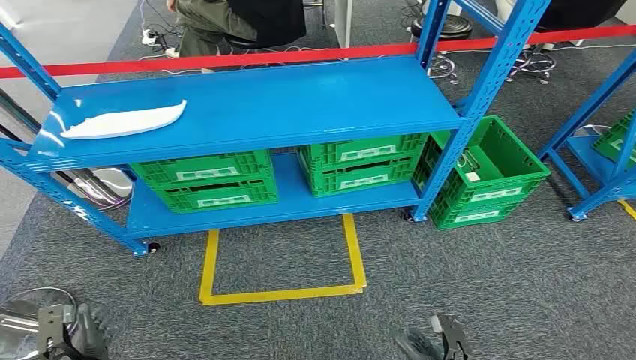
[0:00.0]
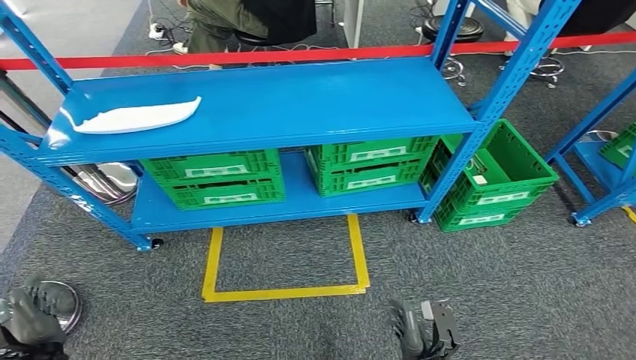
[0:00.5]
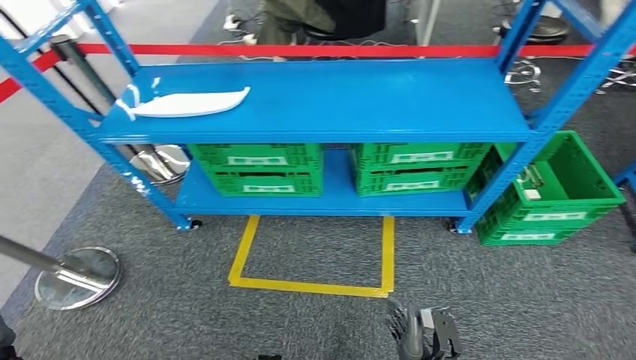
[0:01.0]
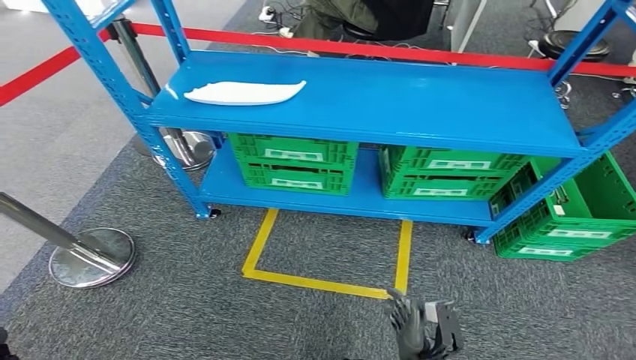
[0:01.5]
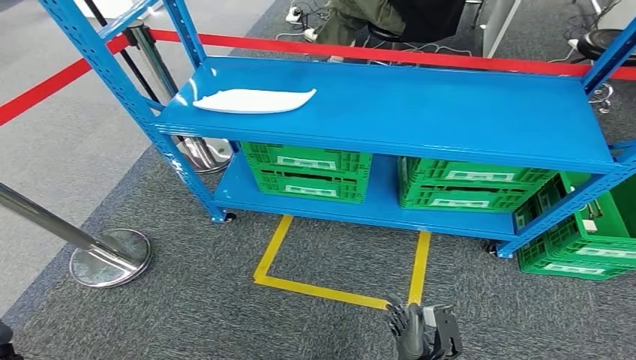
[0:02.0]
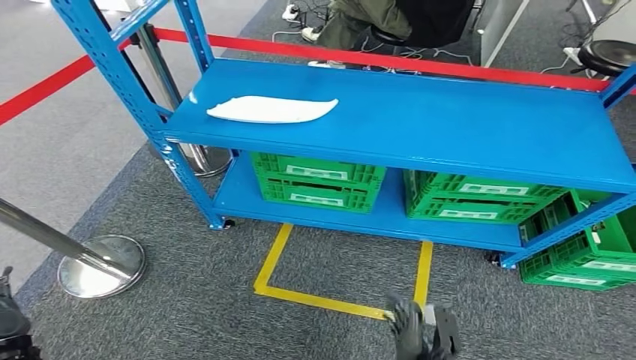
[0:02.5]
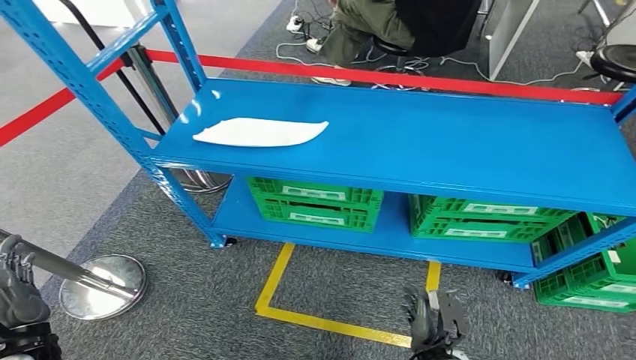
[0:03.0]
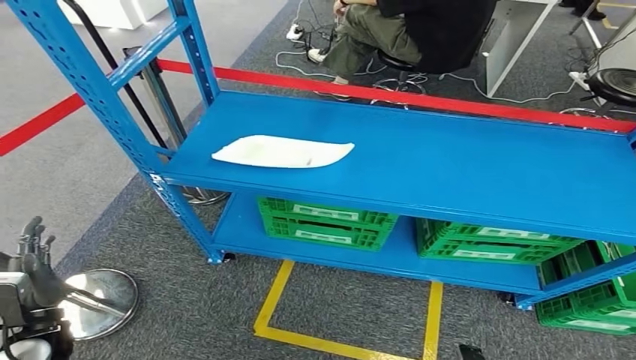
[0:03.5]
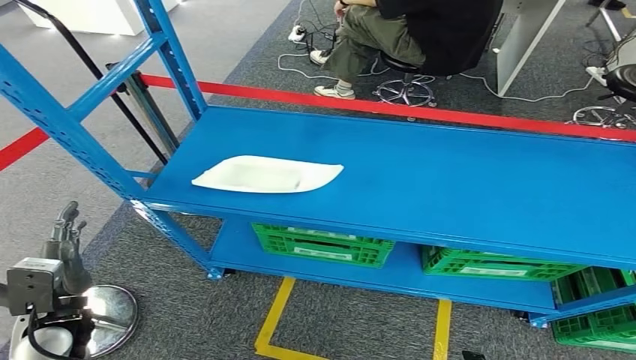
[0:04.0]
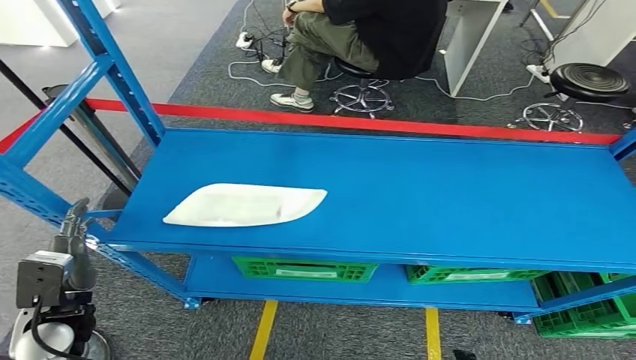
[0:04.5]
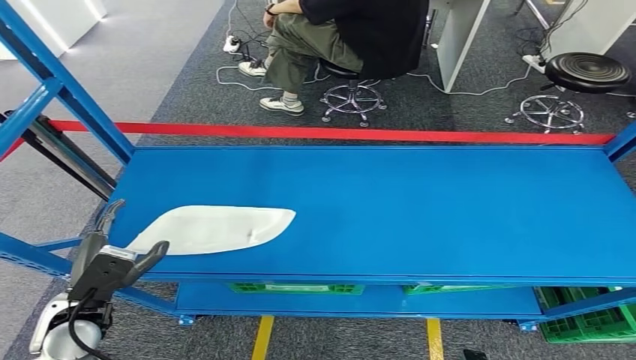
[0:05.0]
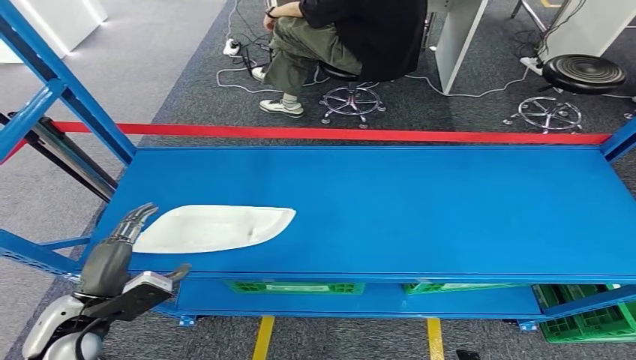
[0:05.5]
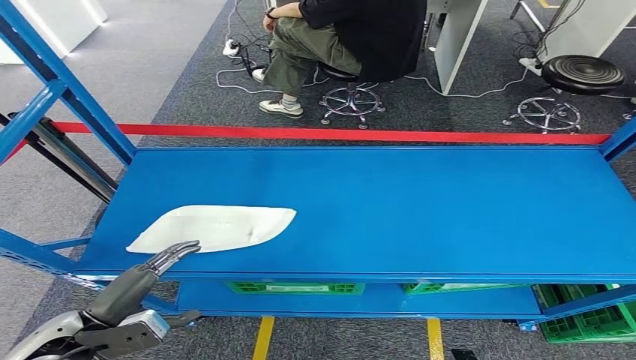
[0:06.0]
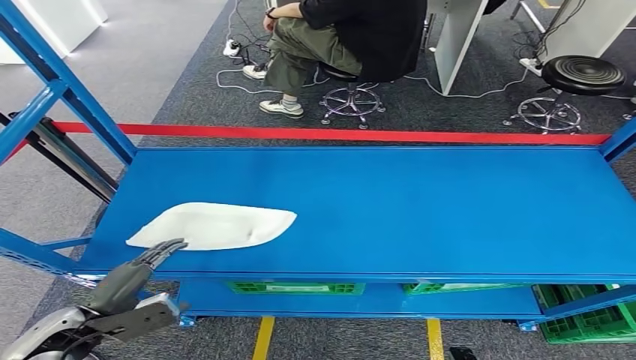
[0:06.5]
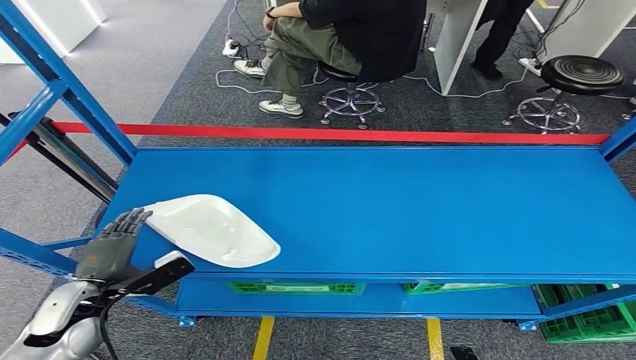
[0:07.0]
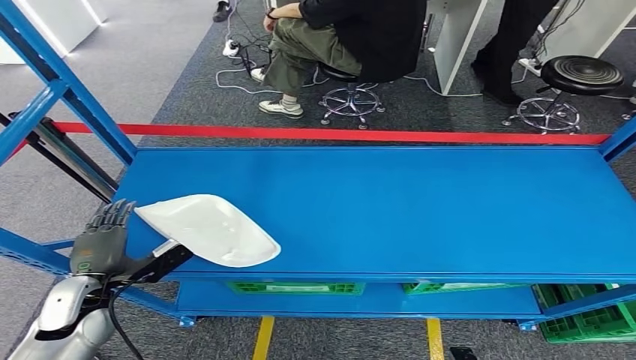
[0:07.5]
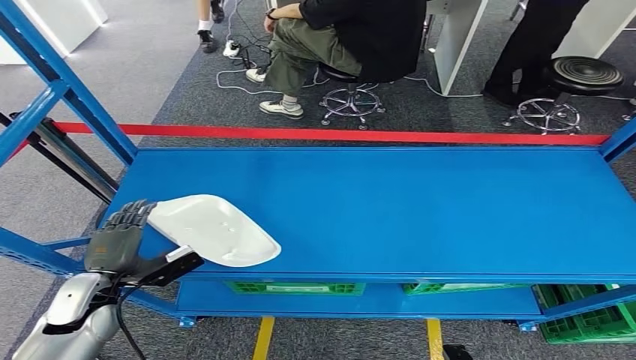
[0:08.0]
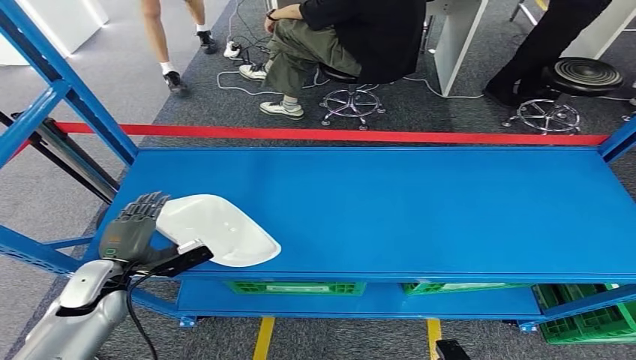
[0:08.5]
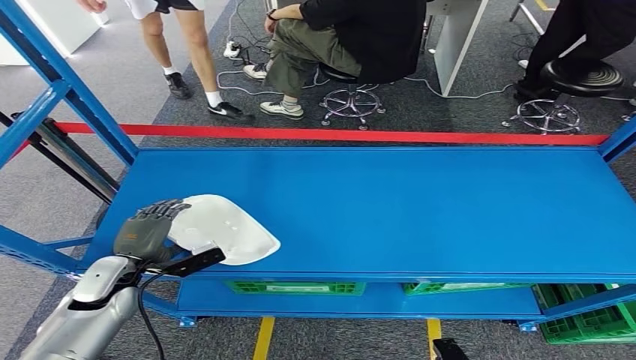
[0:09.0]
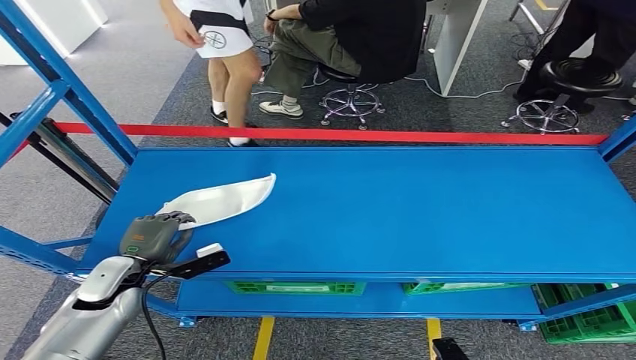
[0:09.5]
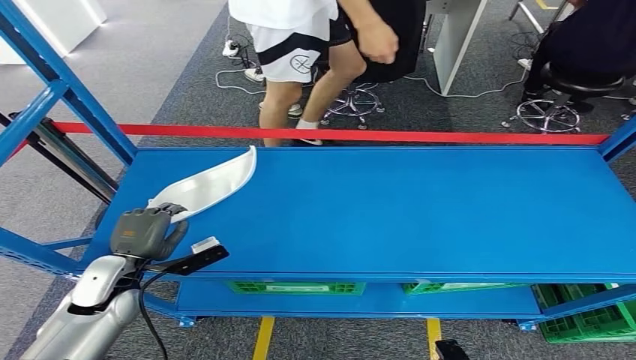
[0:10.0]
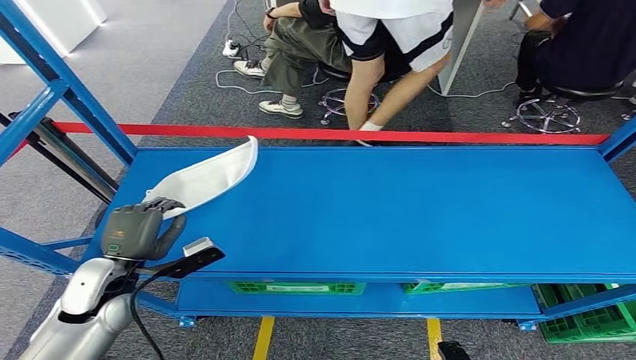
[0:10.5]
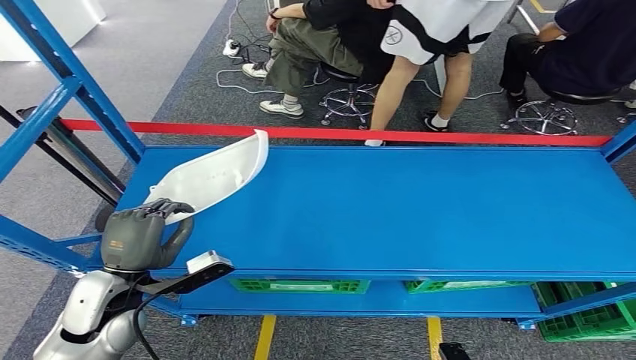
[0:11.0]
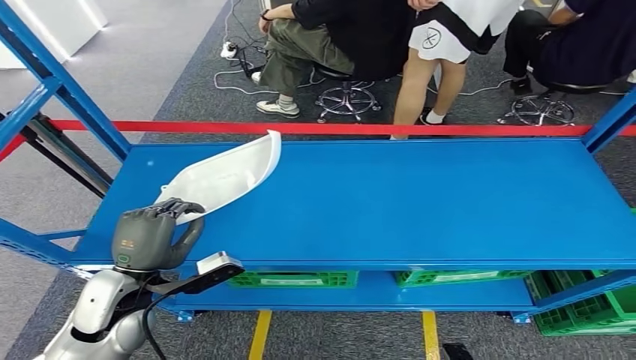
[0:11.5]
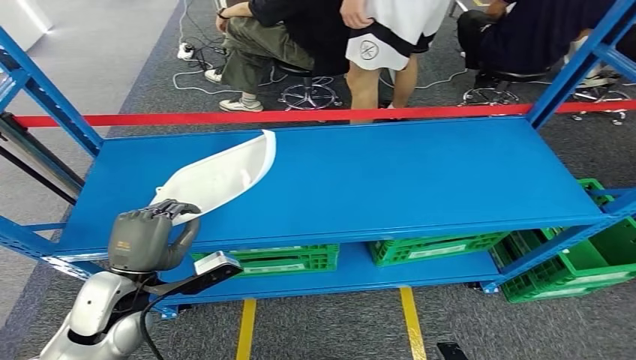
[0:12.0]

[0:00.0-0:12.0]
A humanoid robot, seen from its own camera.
0:06.0 to 0:08.0: The left hand moves forward, roughly 10 cm.
0:08.0 to 0:10.0: The hands move only a little.

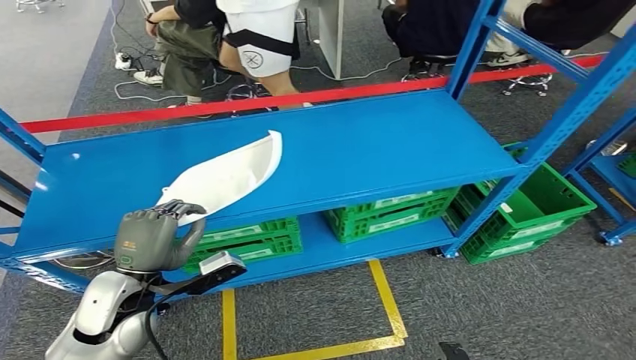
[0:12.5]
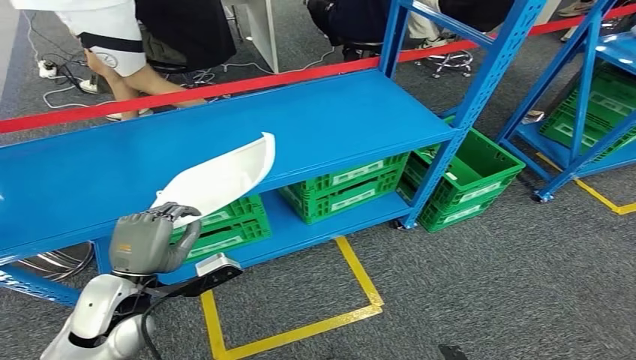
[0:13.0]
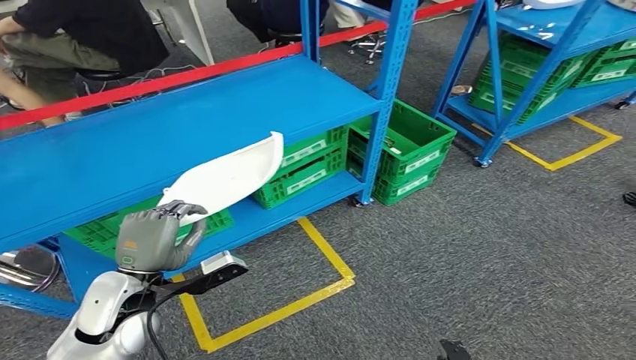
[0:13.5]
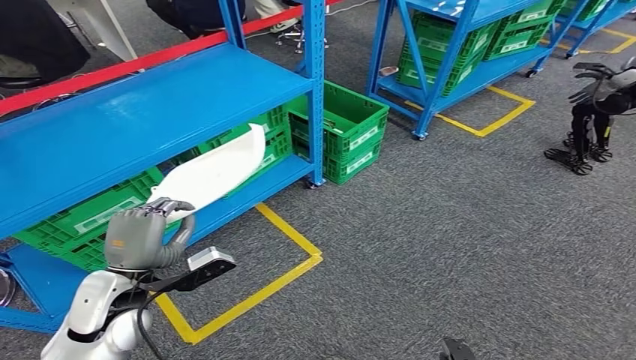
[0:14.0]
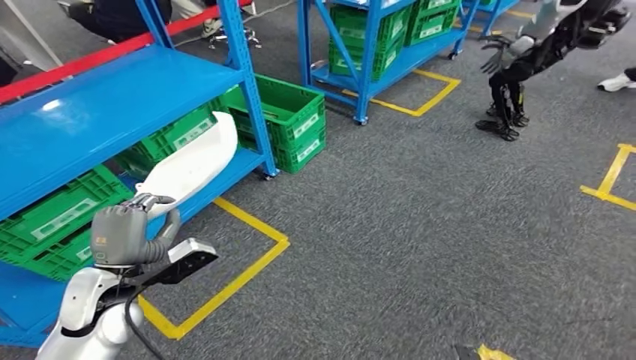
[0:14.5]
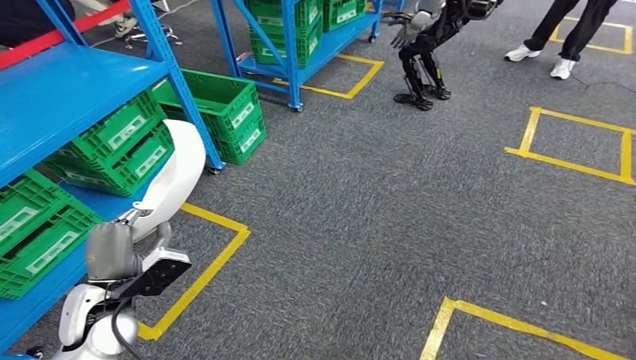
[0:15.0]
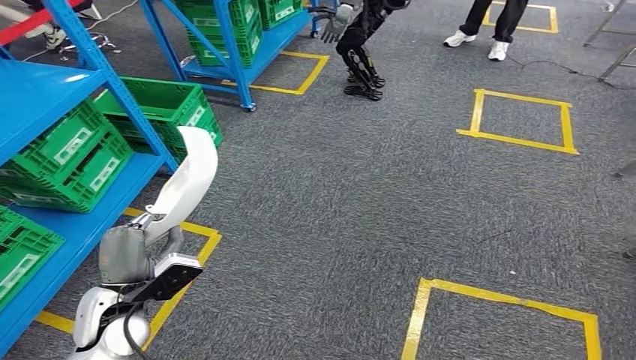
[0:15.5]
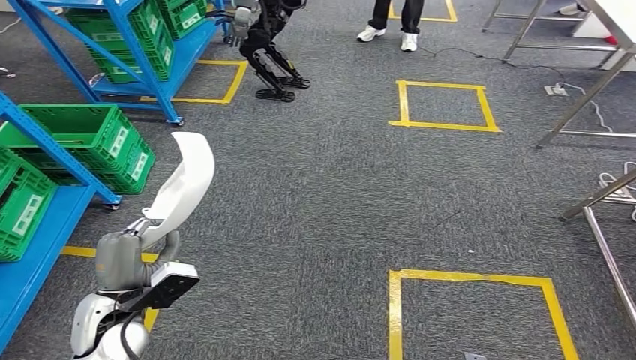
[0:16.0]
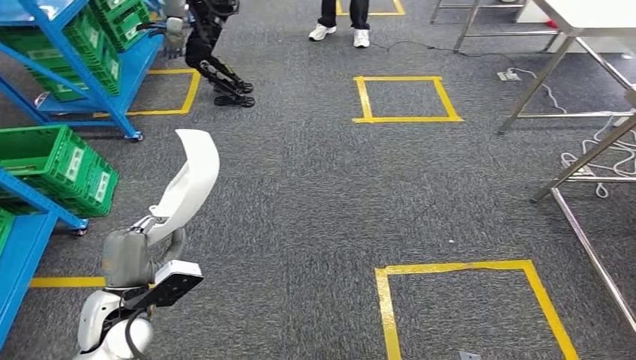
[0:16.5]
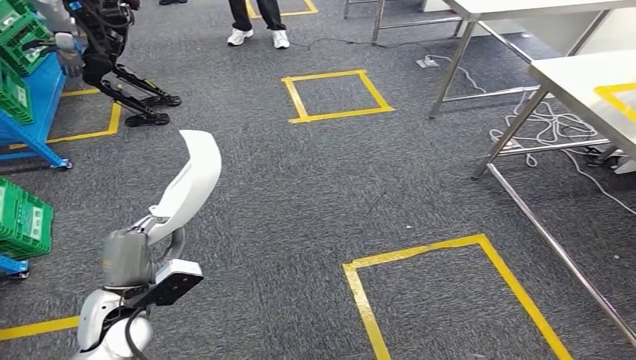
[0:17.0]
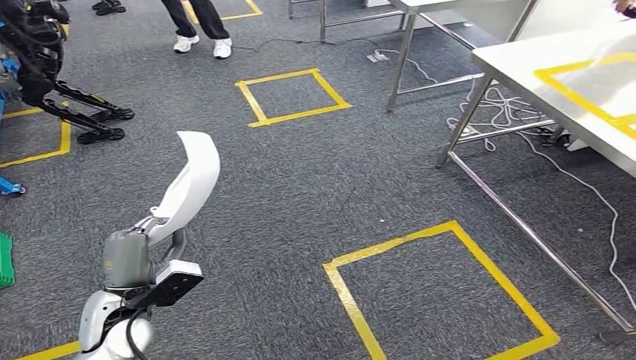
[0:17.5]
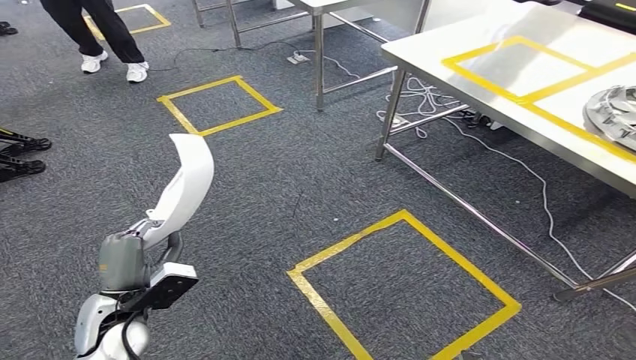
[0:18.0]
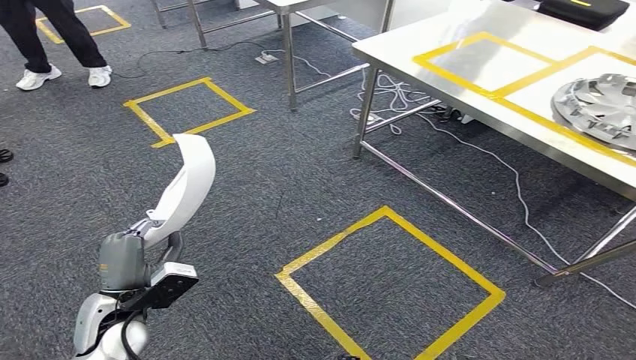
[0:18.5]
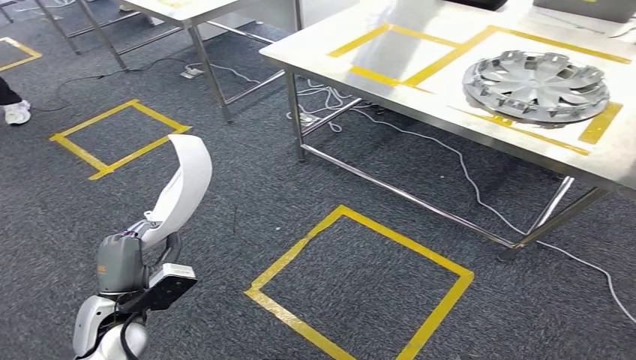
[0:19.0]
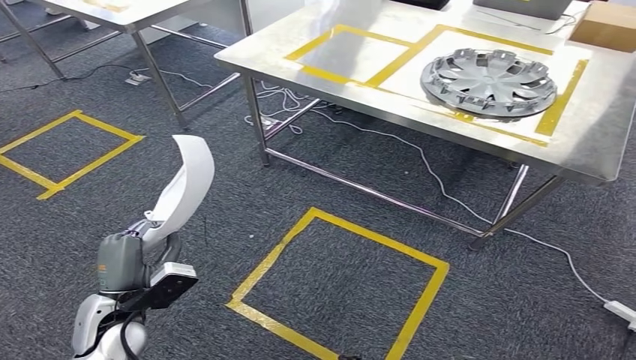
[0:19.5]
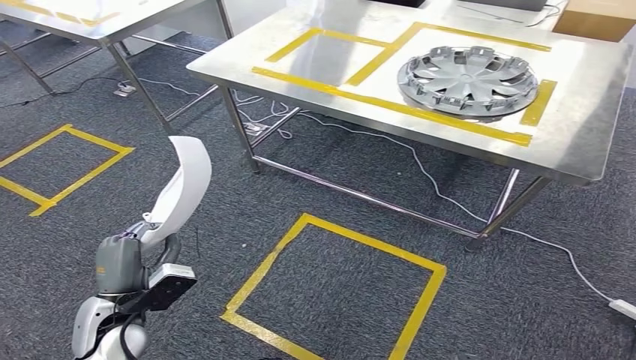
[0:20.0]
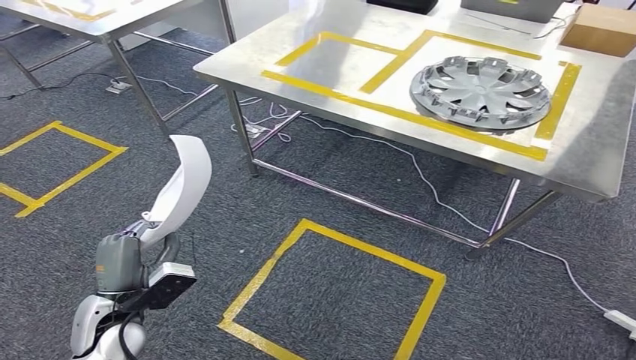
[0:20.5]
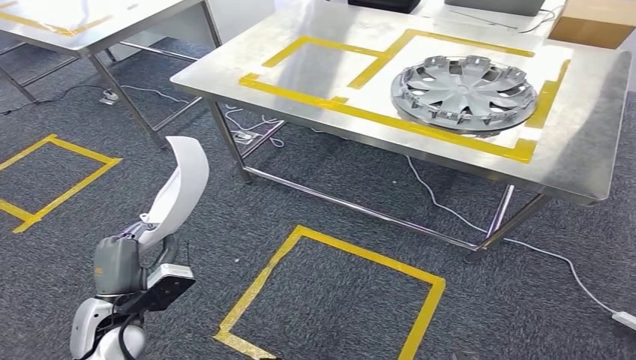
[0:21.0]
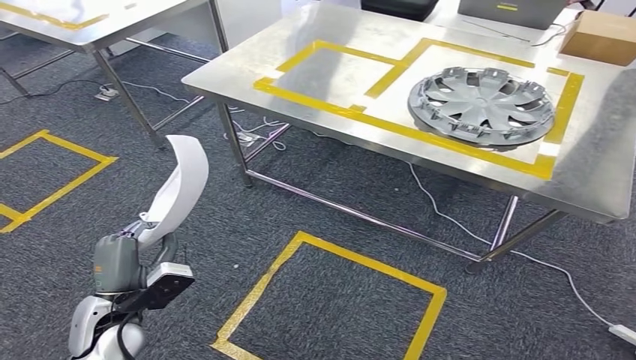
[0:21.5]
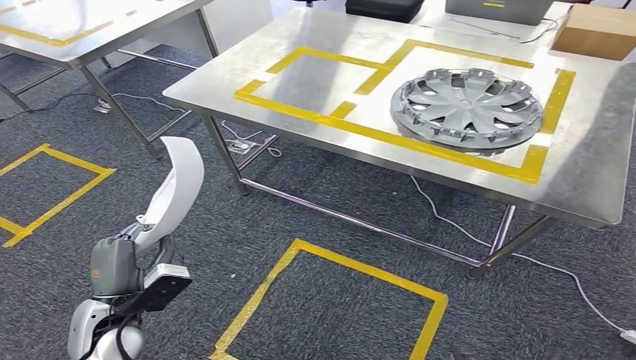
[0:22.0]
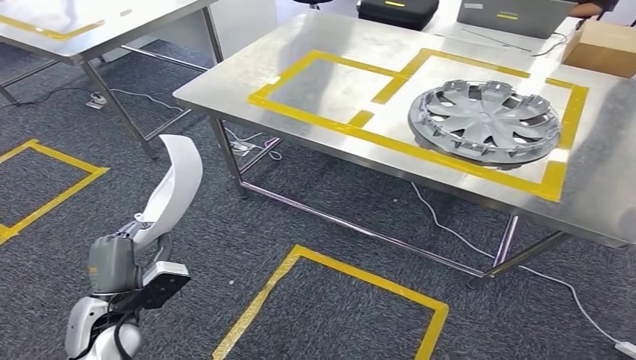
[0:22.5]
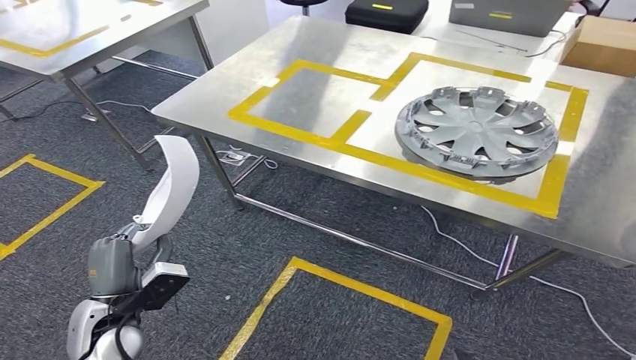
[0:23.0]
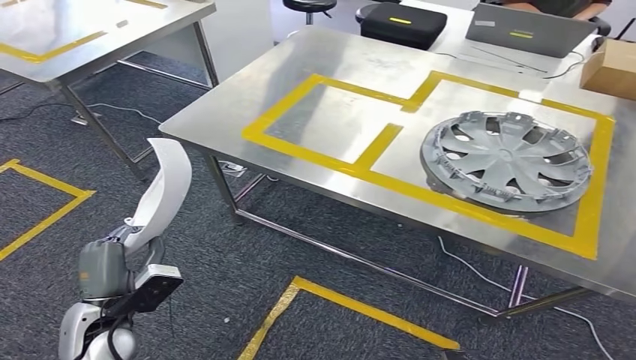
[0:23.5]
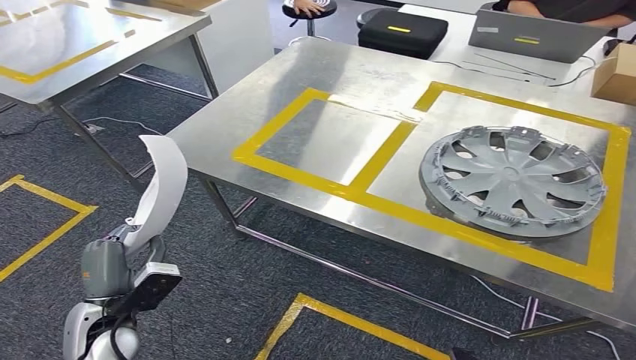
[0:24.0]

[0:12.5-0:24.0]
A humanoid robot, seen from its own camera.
Step, 0:12.5 to 0:15.0: Pick up the small parts from the shelf.
